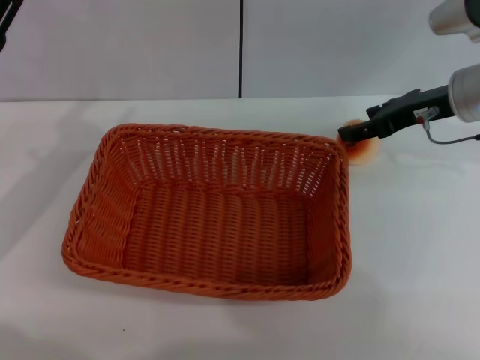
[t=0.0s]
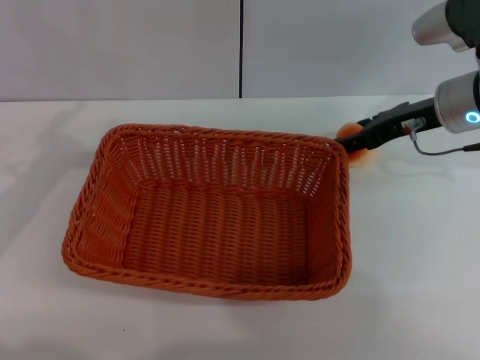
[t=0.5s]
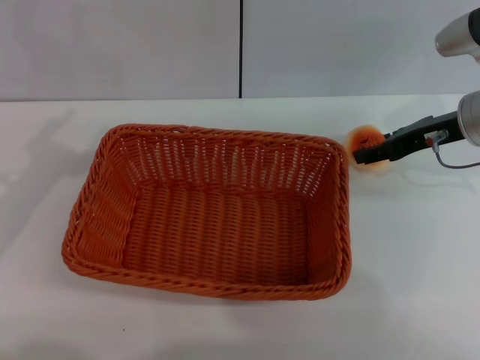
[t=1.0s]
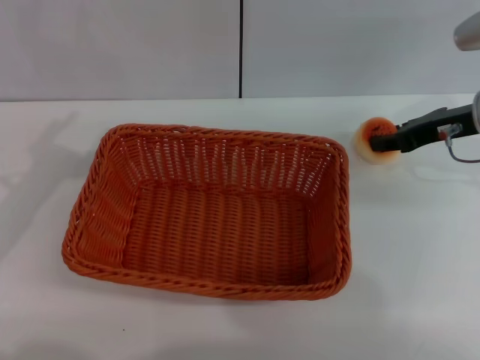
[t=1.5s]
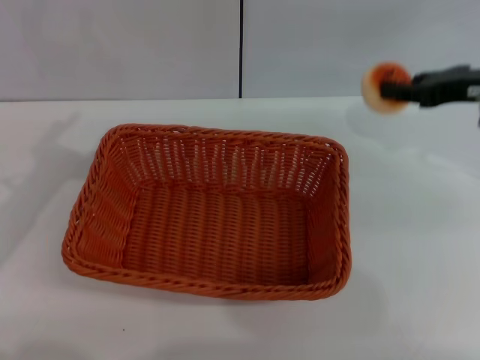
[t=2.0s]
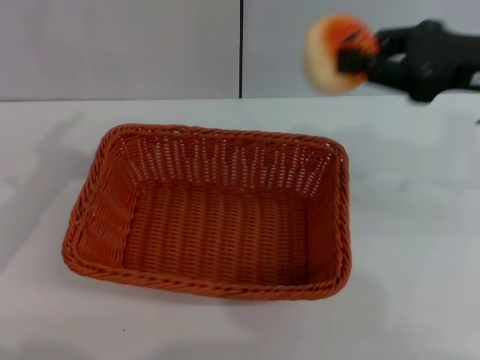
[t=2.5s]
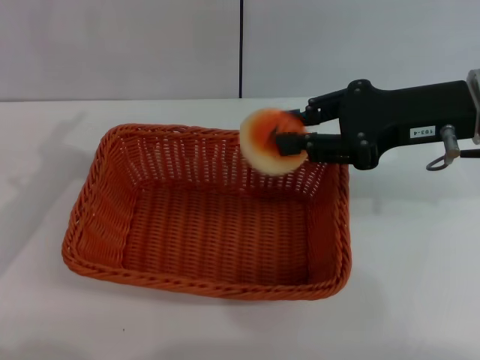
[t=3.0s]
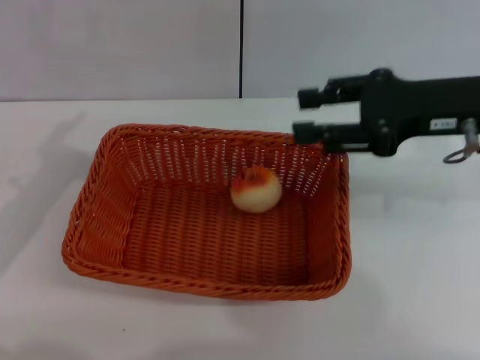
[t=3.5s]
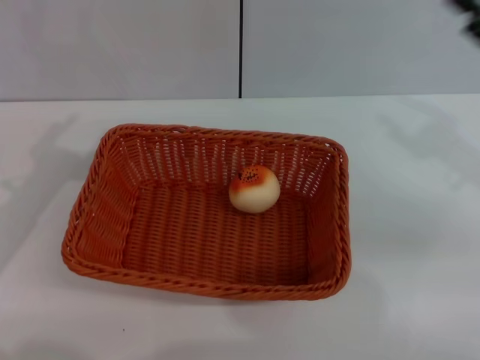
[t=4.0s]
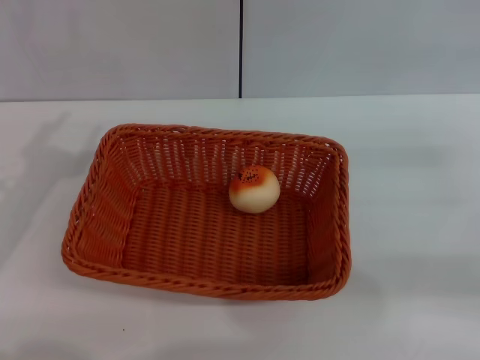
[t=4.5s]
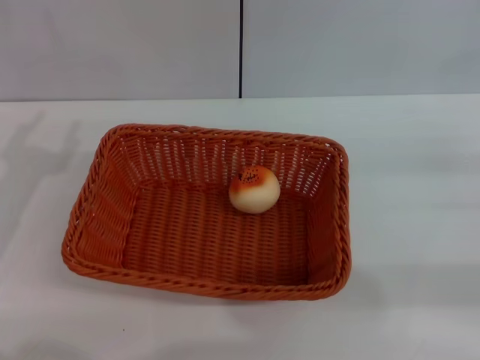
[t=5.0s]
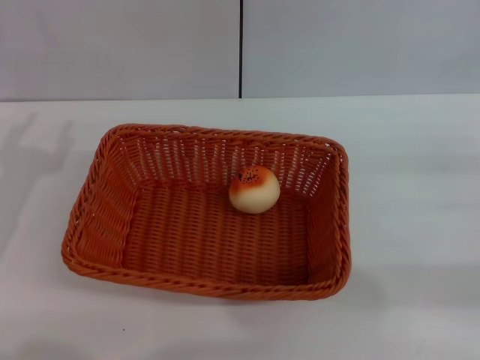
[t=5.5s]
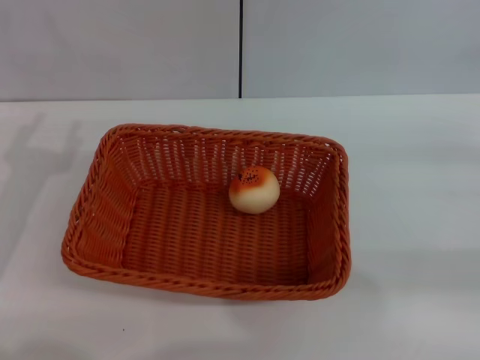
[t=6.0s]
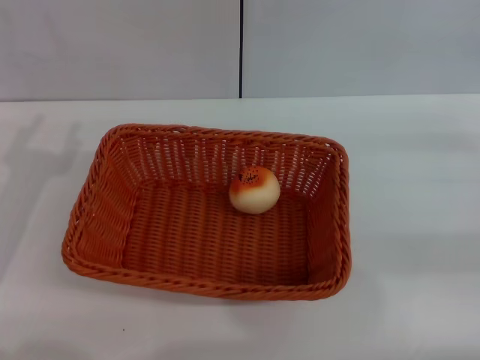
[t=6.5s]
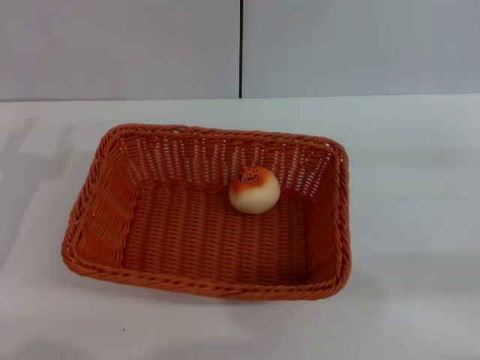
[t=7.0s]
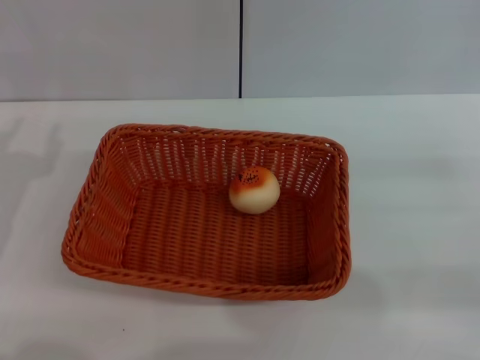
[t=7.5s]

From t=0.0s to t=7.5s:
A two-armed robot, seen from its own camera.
Step, from t=2.0s to t=3.5s: Place the egg yolk pastry into the basket with the right gripper.
From t=0.0s to t=2.0s: The right gripper shifts by some 5 cm, and closes up.
From t=2.0s to t=4.0s: The right gripper is displaced backward by roughly 5 cm, moves some 5 cm to the left and comes back, and opens up.
From t=4.0s to t=5.5s: The right gripper heads to the right and backward, covering some 10 cm.

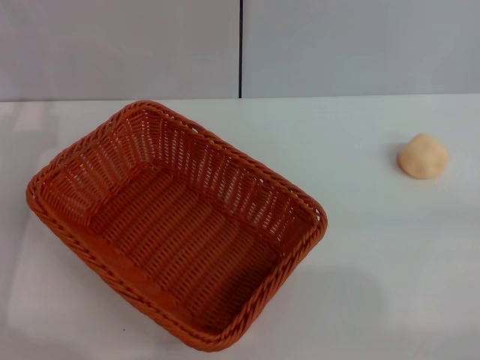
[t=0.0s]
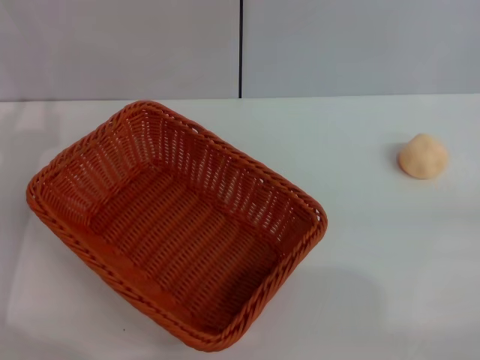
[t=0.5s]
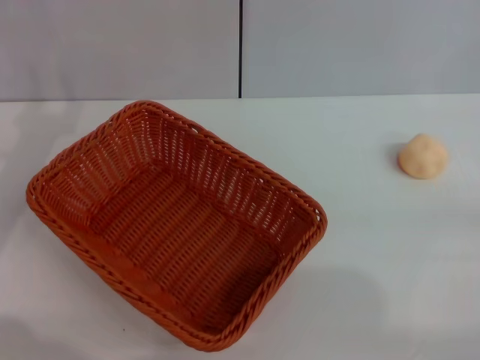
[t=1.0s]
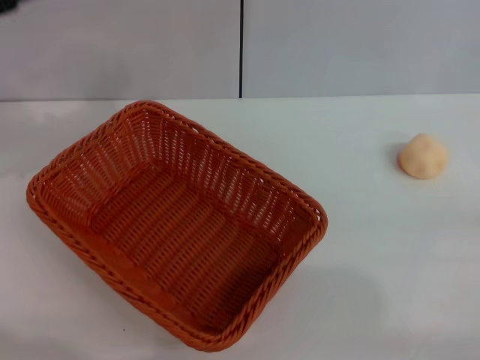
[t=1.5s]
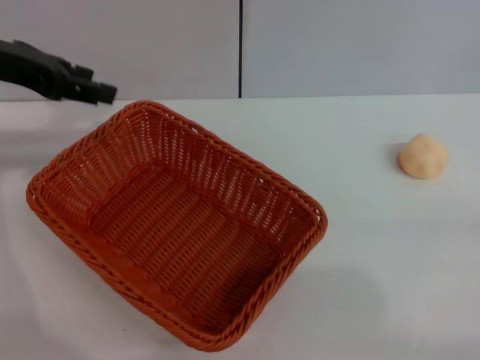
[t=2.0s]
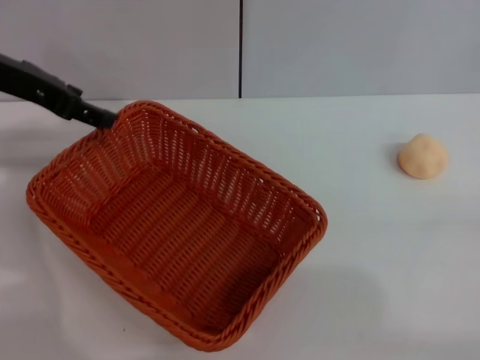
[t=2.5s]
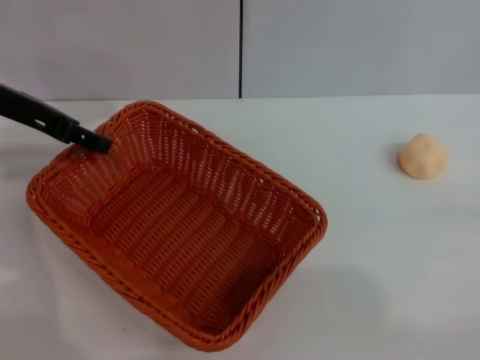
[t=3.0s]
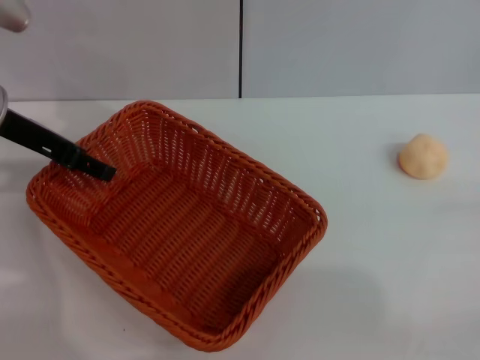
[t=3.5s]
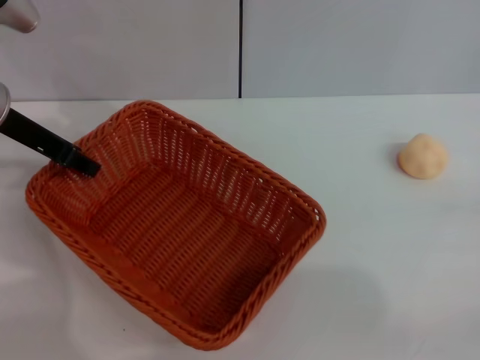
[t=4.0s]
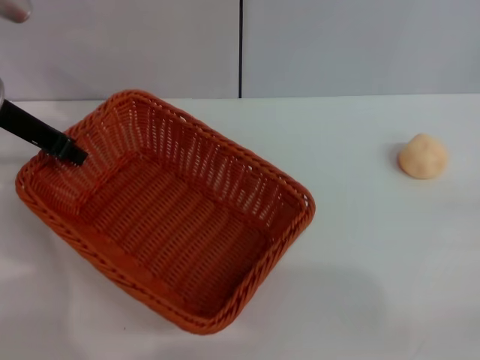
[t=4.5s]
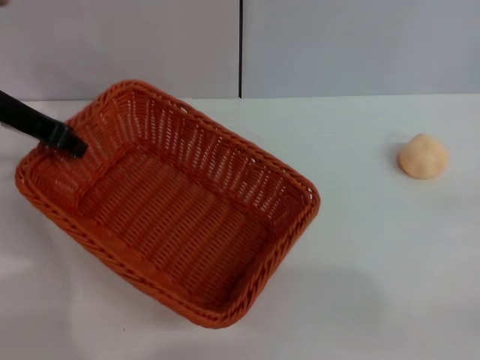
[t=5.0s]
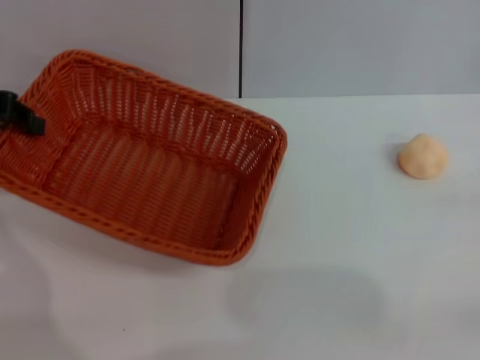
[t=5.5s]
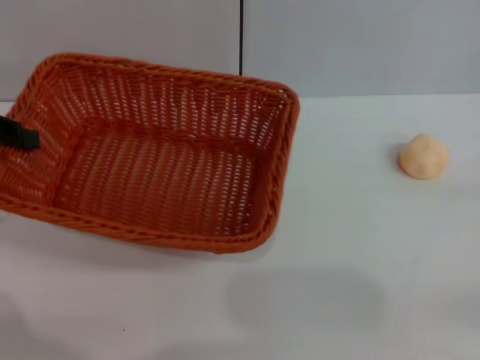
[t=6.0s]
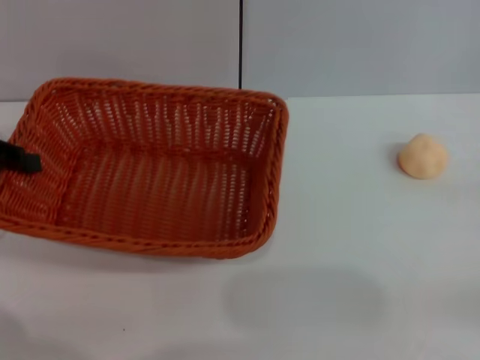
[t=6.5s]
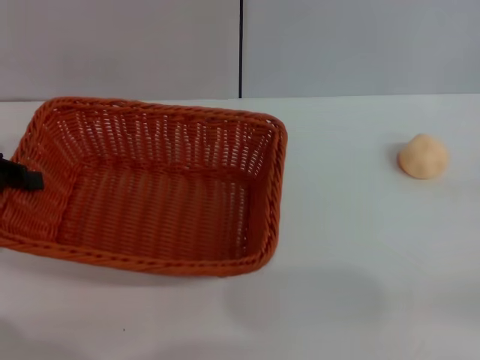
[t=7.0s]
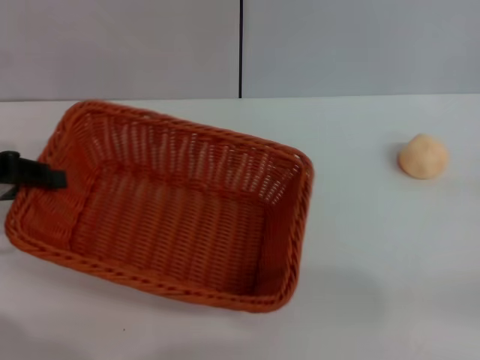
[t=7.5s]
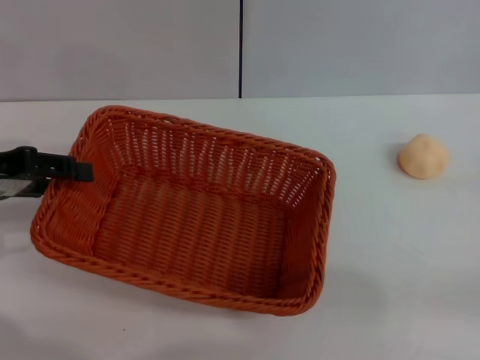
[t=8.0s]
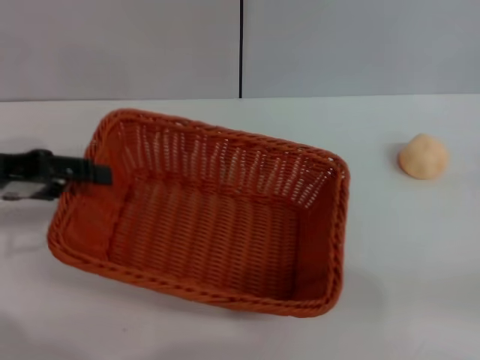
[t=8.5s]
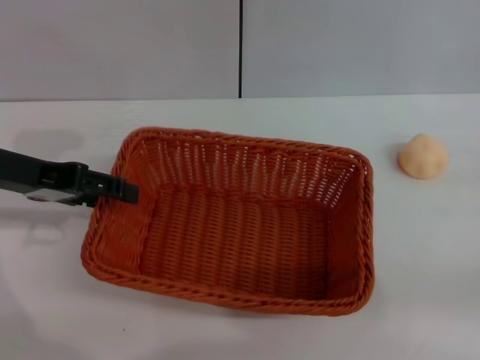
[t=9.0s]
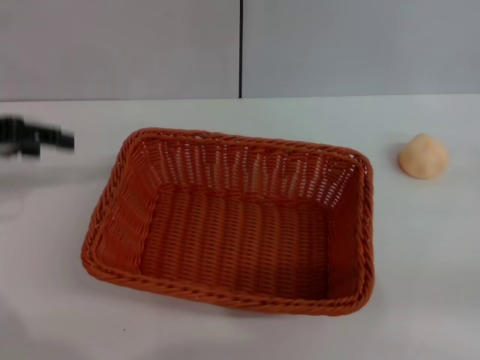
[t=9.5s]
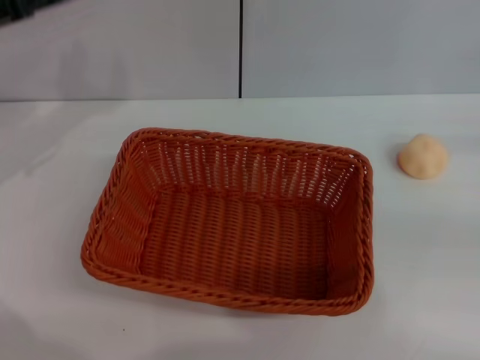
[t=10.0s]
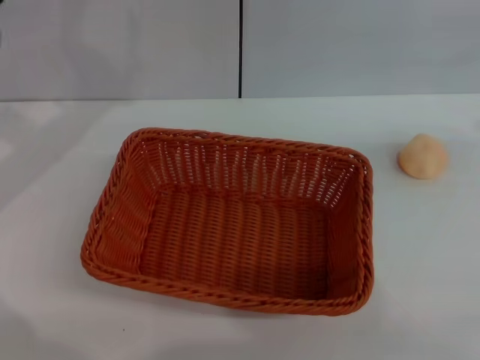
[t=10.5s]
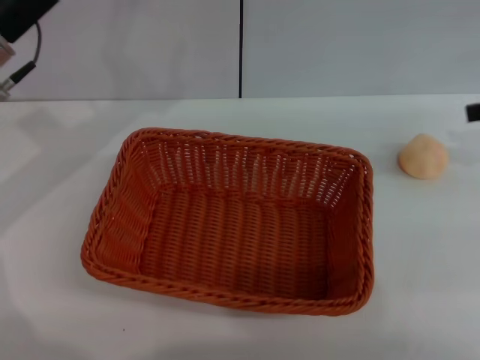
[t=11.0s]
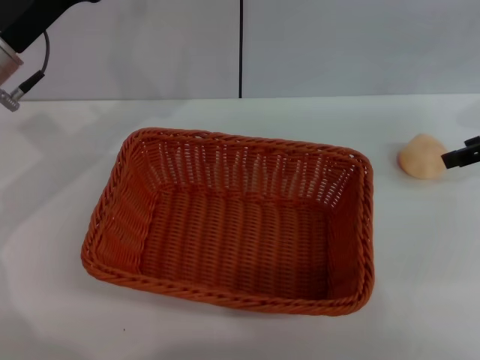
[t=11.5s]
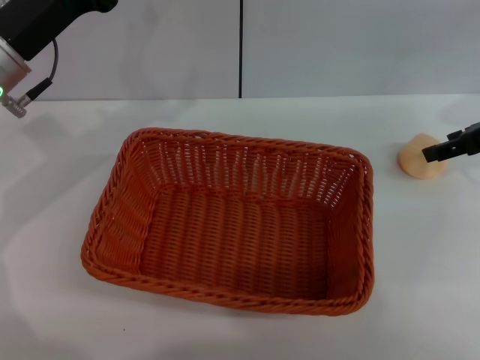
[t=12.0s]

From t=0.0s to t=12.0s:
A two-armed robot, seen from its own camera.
Step, from t=0.0s to t=9.0s: Move the basket to the center of view with the left gripper.
From t=0.0s to t=2.0s: The left gripper goes about 20 cm upward and forward.
From t=2.0s to t=4.0s: The left gripper travels downward by about 5 cm.
From t=4.0s to t=6.0s: The left gripper heads to the left and backward, covering roughly 10 cm, and closes up.
From t=6.0s to t=8.0s: The left gripper opens.
From t=8.0s to t=10.0s: The right gripper shifts some 5 cm upward; the left gripper travels forward by about 5 cm, and opens its fingers.
From t=10.0s to t=12.0s: The left gripper is displaced to the right by about 10 cm. Meanwhile the right gripper is displaced to the left and forward by roughly 20 cm.

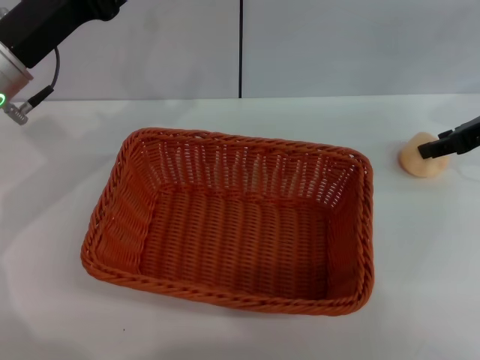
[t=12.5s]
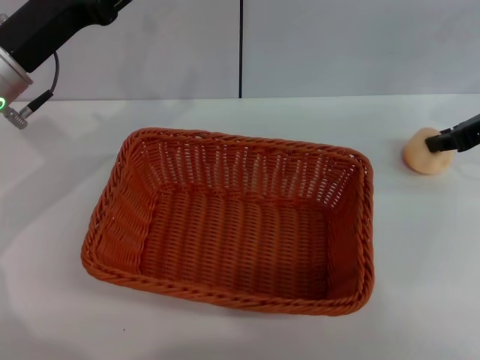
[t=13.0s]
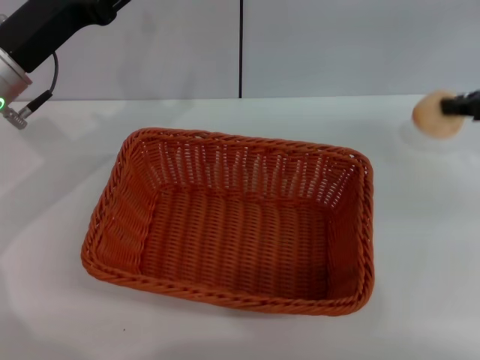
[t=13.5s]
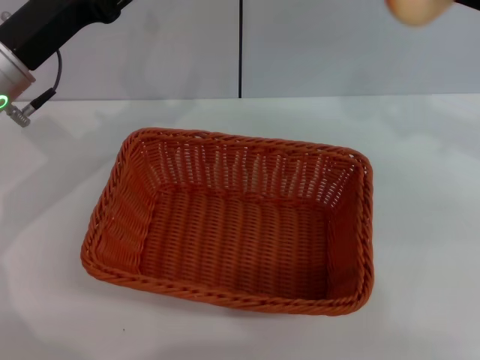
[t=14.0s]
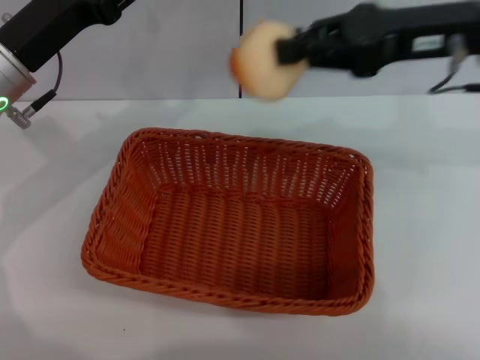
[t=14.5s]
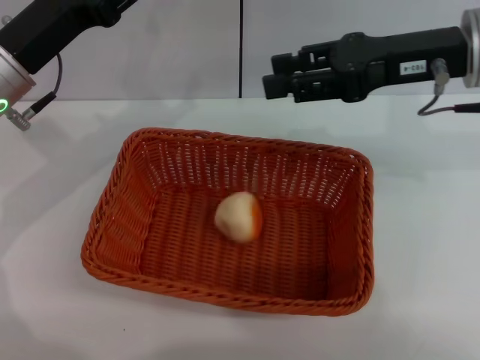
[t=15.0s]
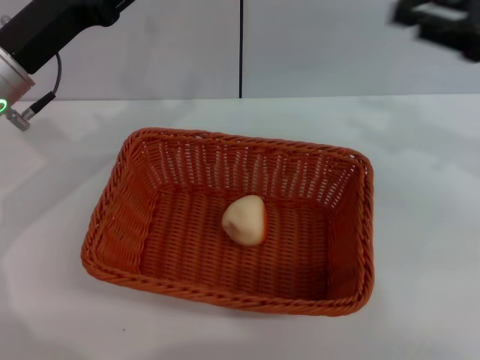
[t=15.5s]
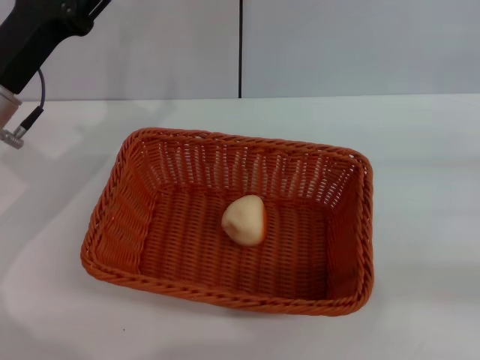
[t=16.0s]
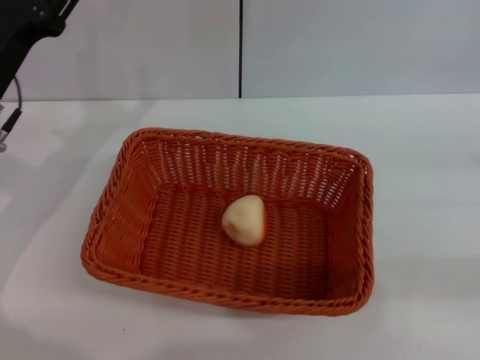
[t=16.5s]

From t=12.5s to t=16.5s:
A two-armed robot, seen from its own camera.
Step, from t=13.5s to t=15.0s: Place the egg yolk pastry into the basket with the right gripper.
From t=12.5s to t=14.5s: The right gripper is displaced to the left and upward by some 15 cm, and closes up.
From t=14.5s to t=16.5s: The right gripper shifts roughly 25 cm to the right, downward and backward, and opens.
